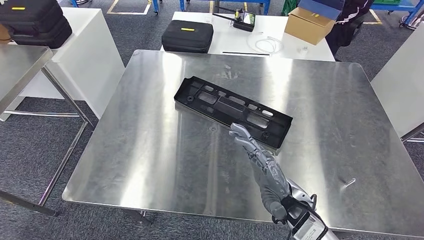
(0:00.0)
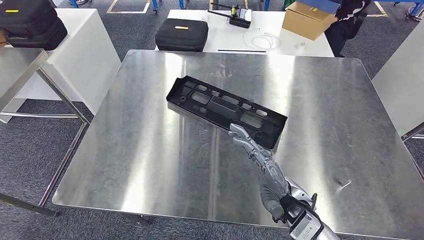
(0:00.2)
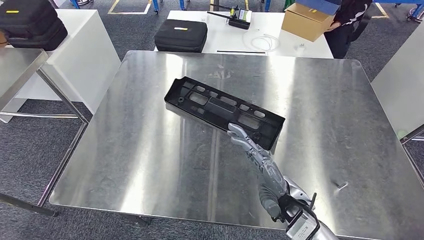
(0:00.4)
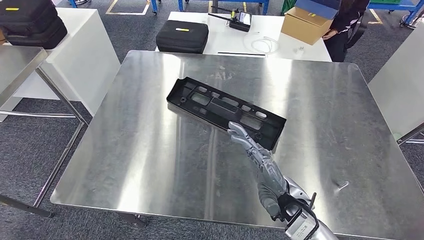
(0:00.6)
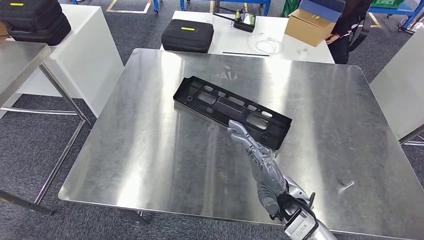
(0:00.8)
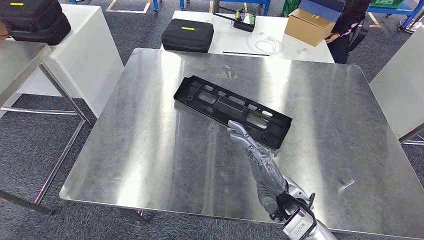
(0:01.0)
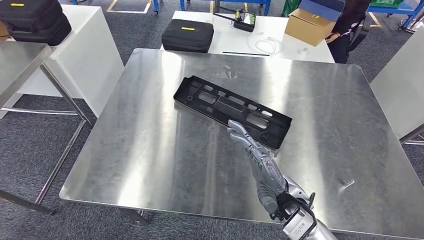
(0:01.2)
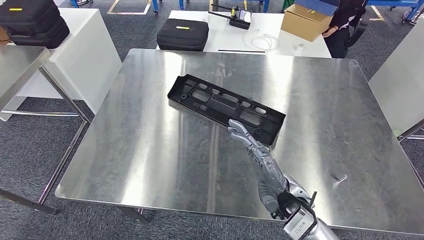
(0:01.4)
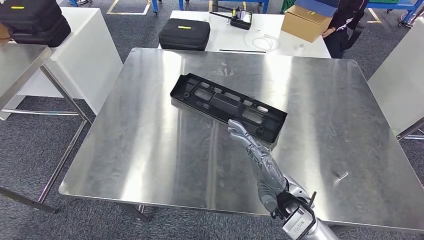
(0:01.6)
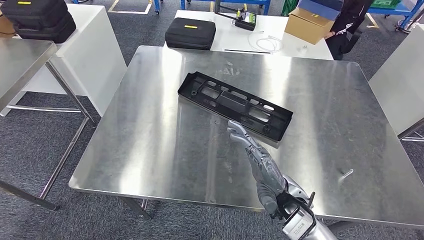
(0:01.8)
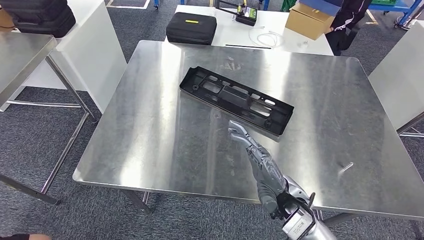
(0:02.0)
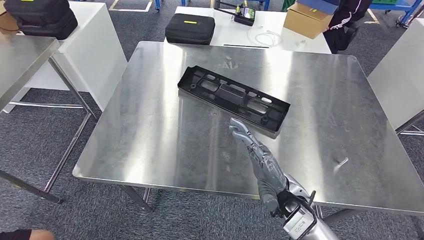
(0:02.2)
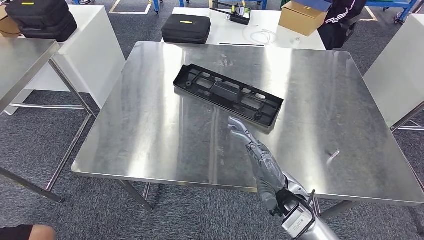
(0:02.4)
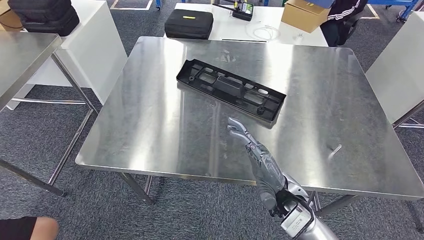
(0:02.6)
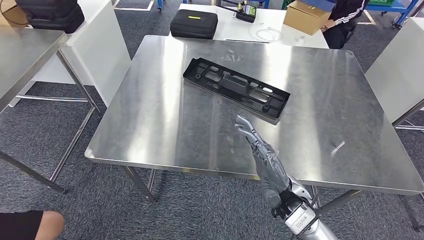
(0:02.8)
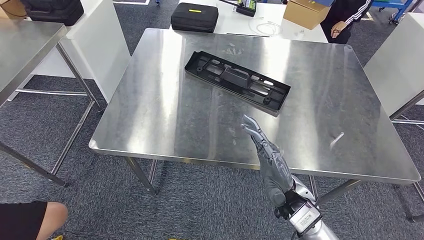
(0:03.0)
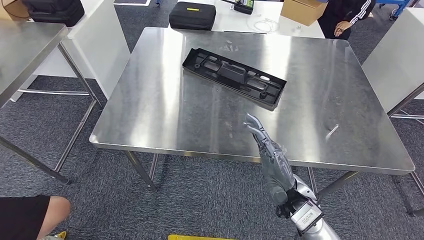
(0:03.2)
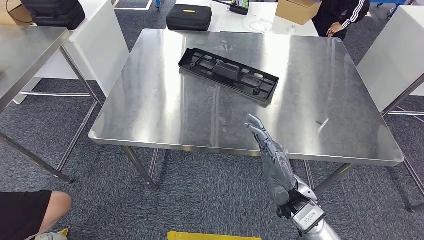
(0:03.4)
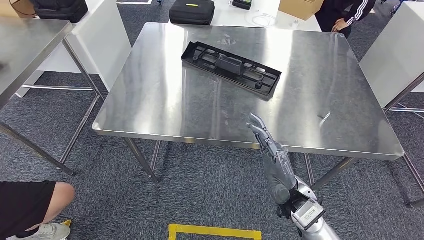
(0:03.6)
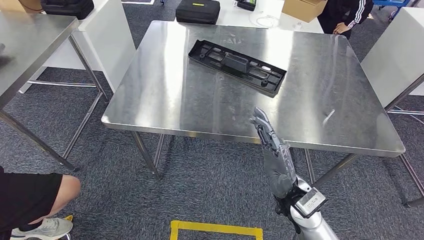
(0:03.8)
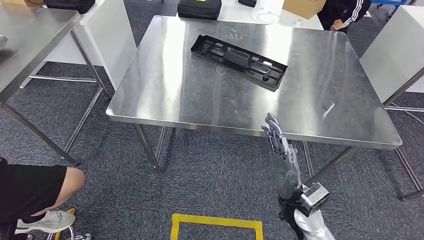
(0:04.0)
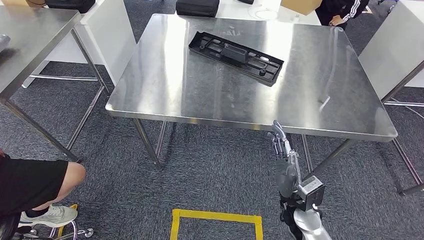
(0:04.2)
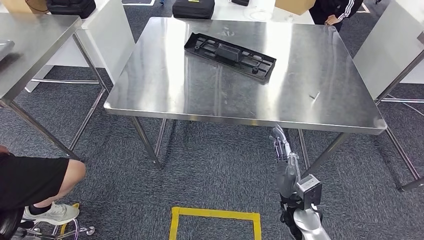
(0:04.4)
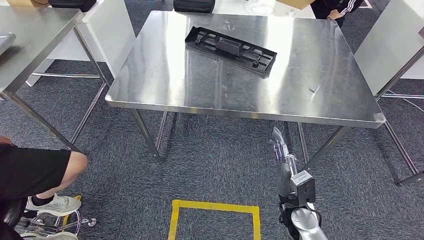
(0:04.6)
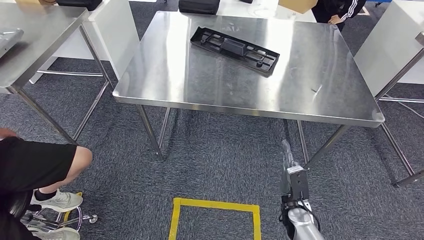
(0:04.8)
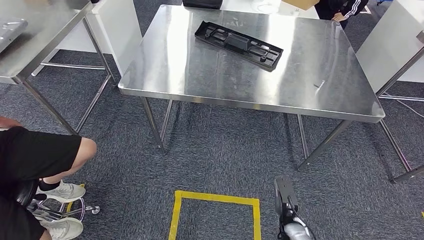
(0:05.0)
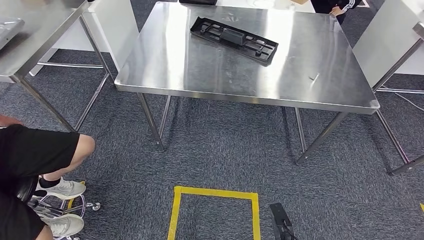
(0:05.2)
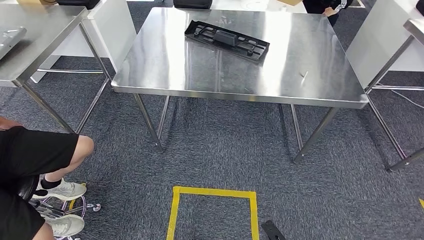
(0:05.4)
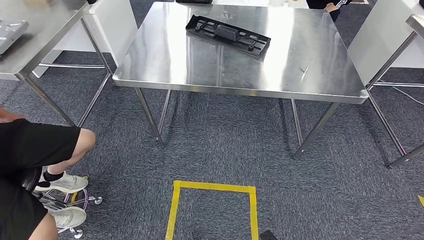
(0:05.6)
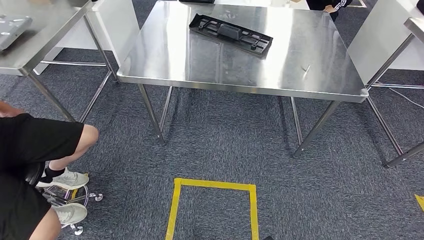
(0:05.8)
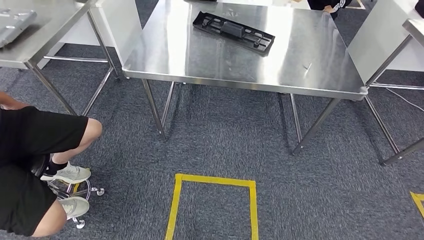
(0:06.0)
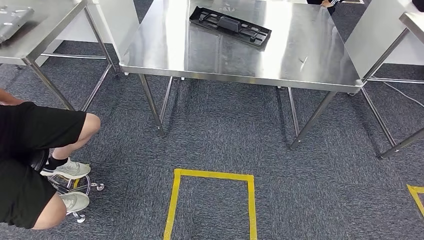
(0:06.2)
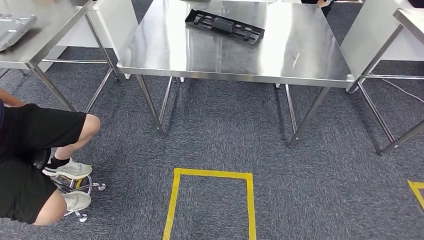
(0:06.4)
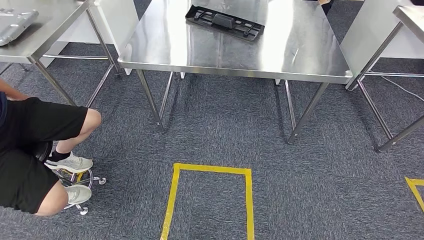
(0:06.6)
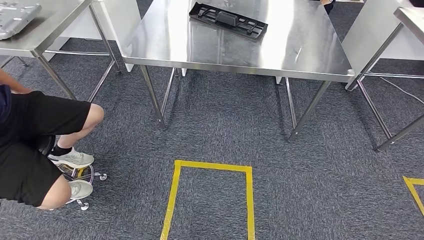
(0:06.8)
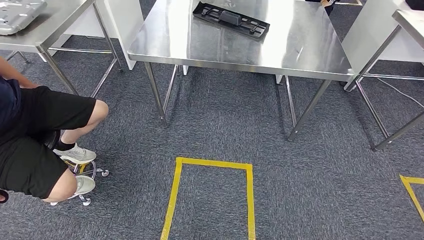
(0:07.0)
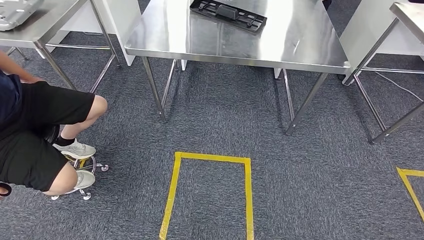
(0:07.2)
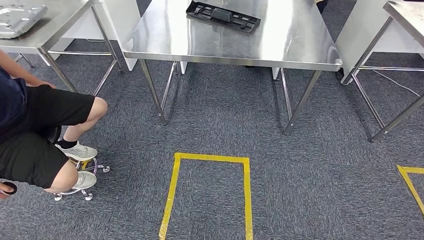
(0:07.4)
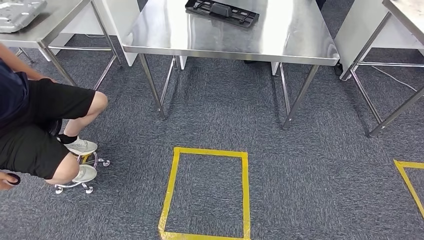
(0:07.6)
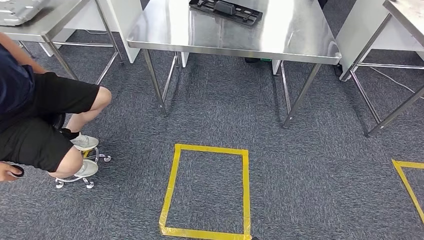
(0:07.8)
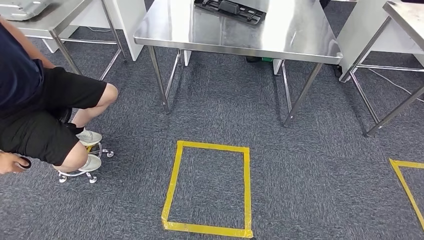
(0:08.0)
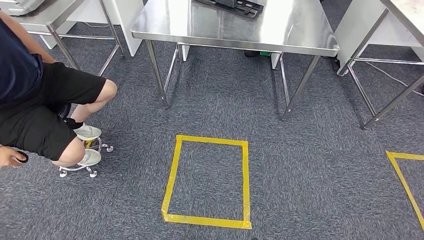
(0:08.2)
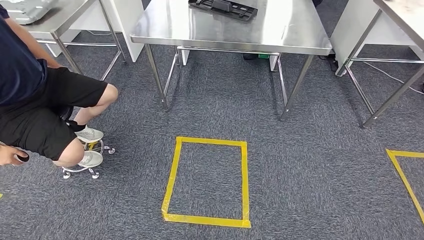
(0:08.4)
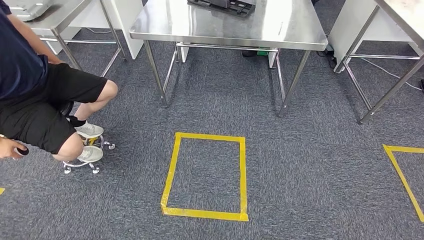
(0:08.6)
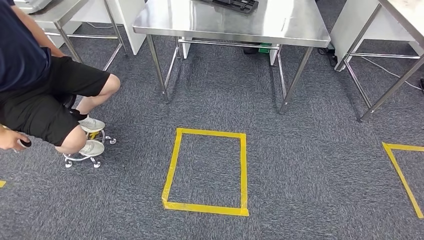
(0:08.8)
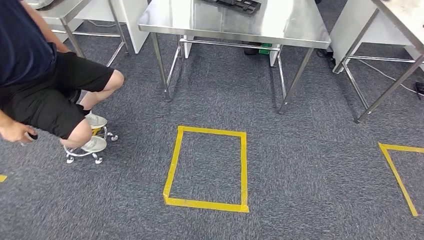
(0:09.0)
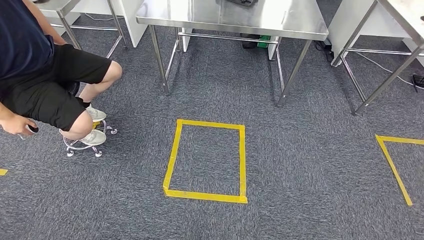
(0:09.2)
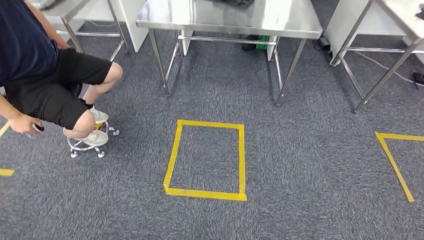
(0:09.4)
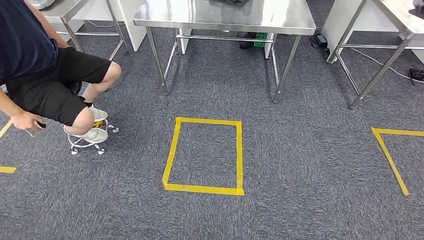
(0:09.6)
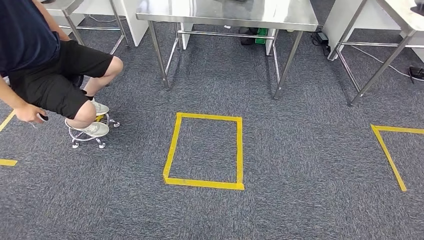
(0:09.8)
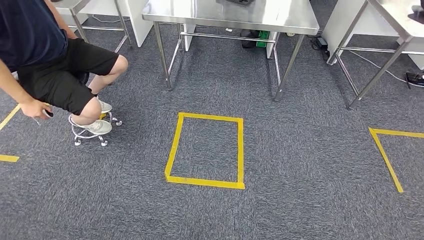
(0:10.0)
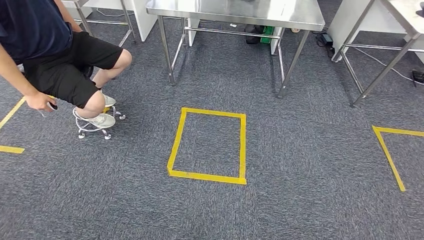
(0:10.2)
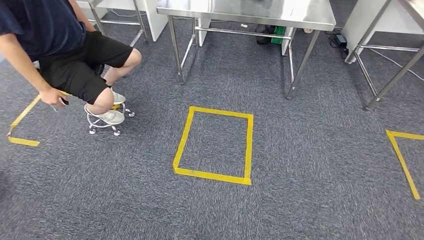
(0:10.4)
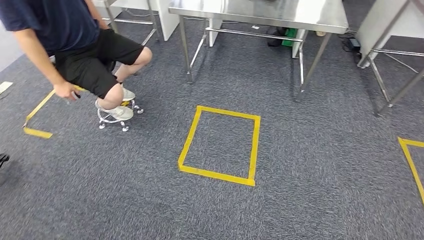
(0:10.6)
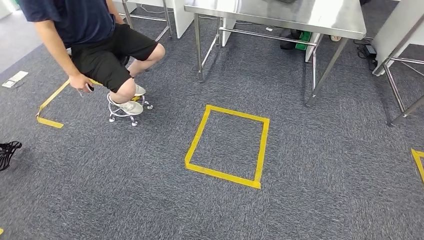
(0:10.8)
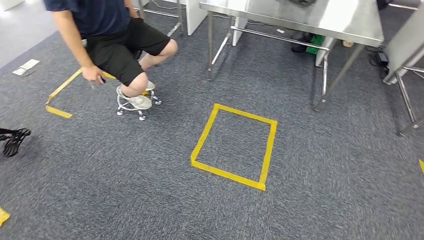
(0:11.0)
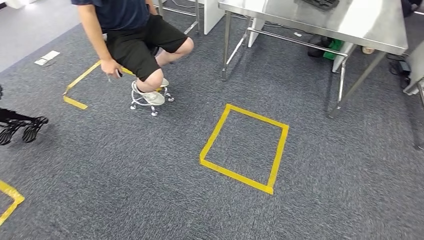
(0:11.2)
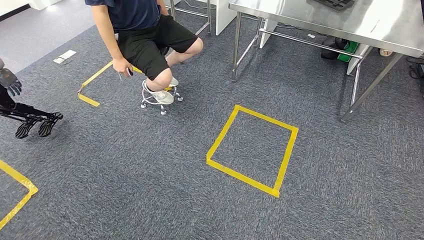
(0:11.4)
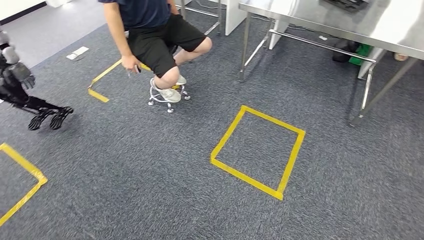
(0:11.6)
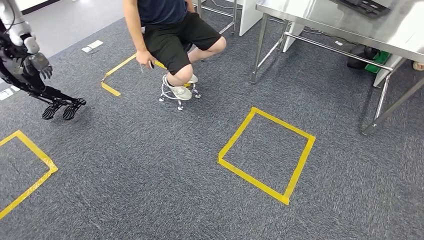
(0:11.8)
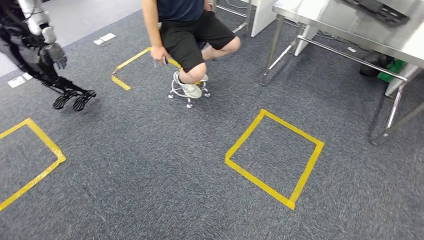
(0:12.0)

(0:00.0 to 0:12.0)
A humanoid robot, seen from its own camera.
0:00.0 - 0:01.6: Both hands stay about where they are.

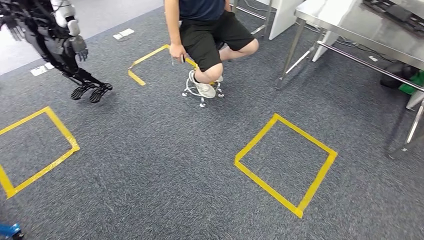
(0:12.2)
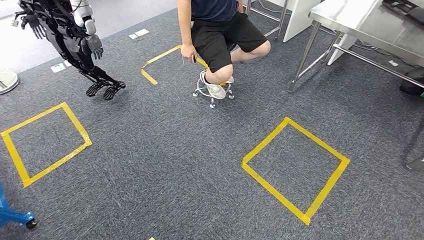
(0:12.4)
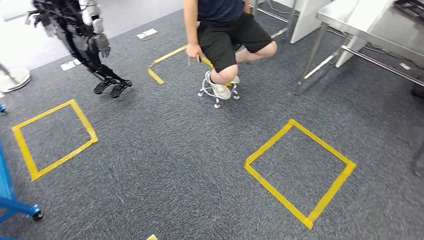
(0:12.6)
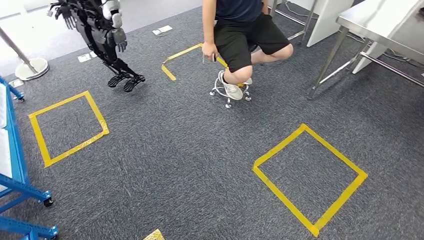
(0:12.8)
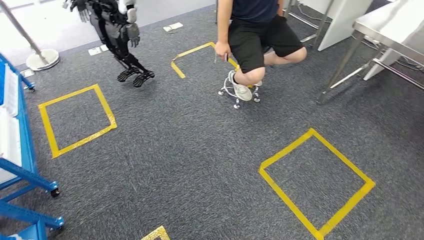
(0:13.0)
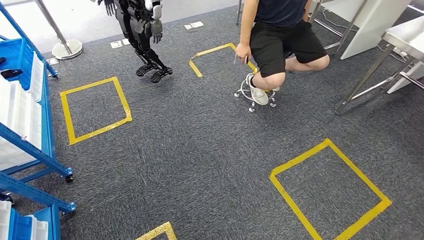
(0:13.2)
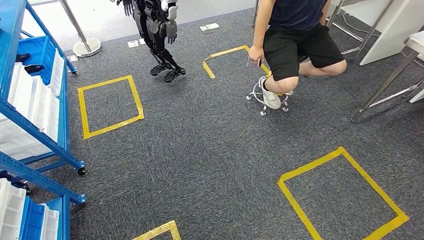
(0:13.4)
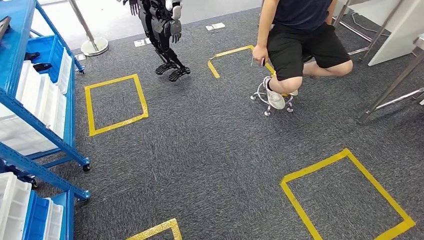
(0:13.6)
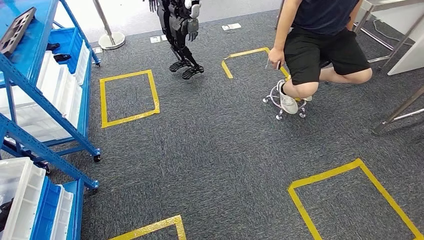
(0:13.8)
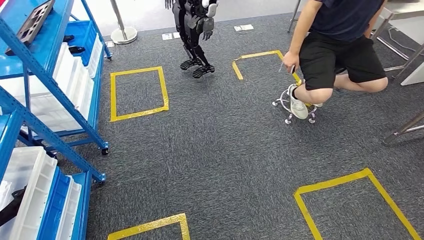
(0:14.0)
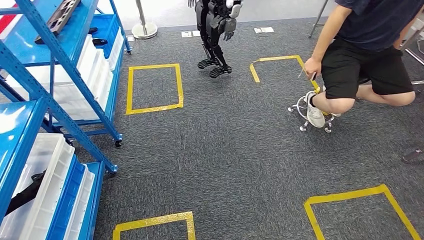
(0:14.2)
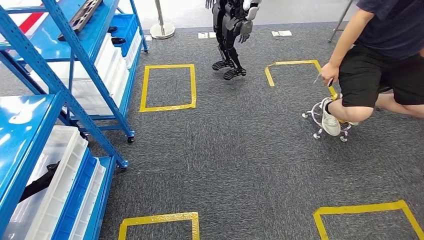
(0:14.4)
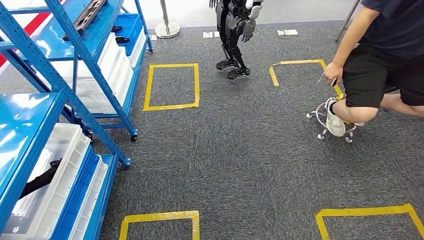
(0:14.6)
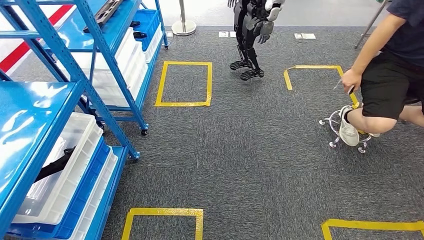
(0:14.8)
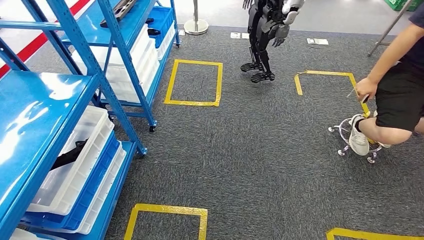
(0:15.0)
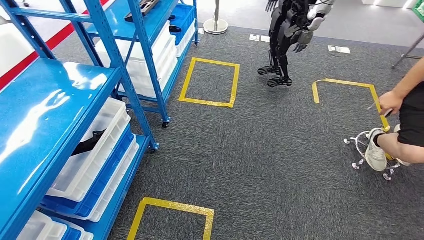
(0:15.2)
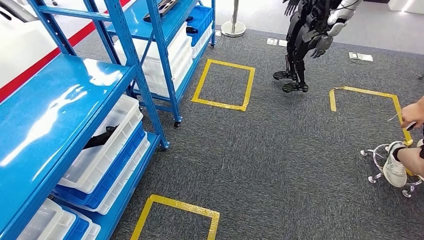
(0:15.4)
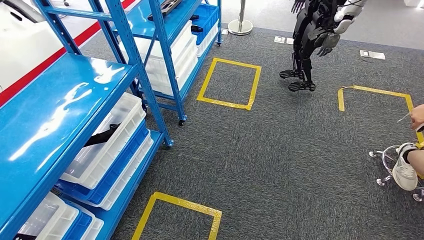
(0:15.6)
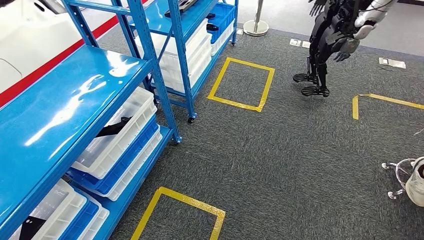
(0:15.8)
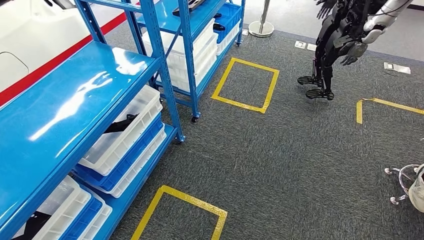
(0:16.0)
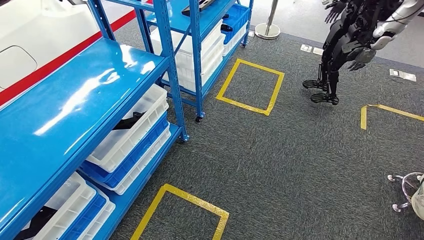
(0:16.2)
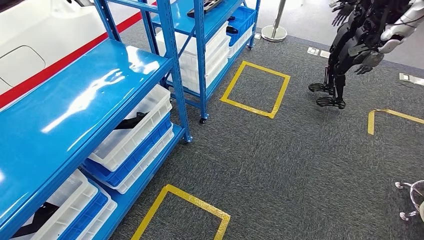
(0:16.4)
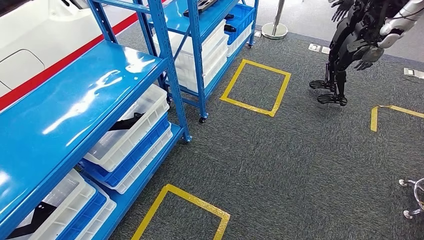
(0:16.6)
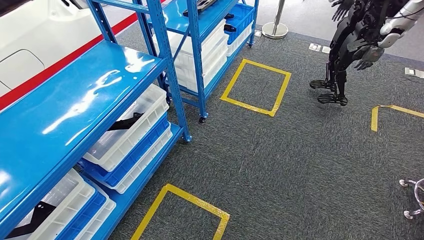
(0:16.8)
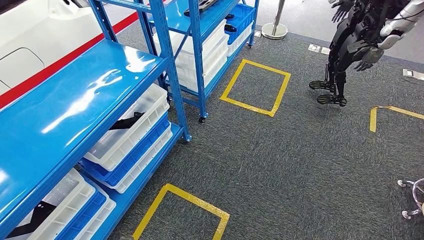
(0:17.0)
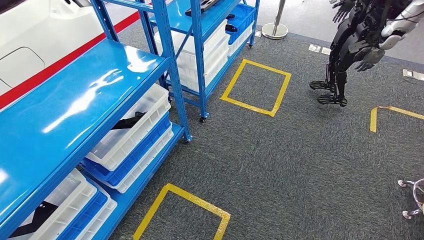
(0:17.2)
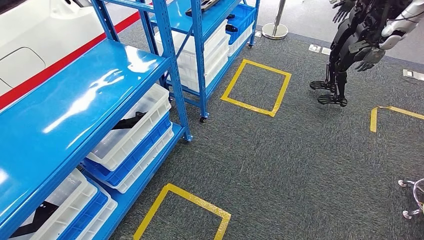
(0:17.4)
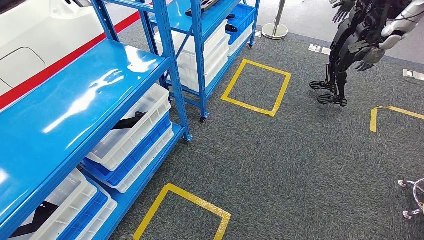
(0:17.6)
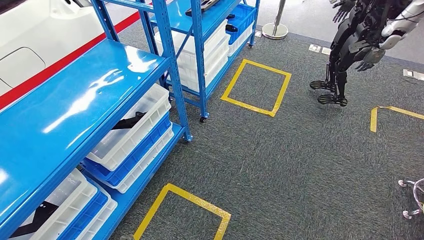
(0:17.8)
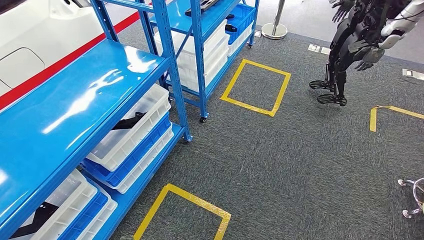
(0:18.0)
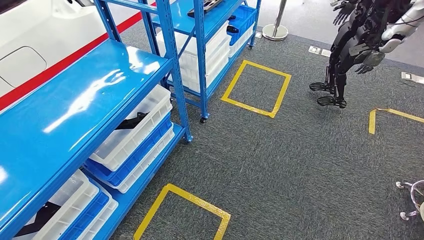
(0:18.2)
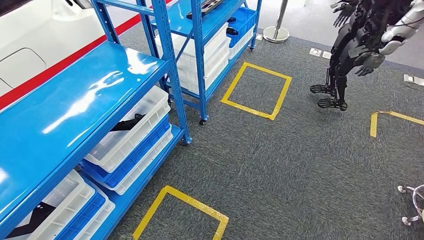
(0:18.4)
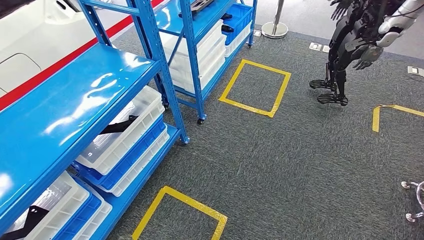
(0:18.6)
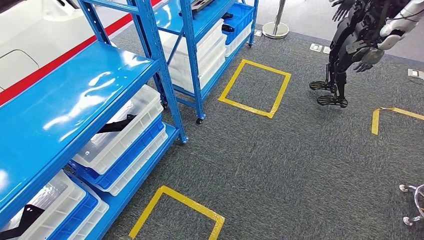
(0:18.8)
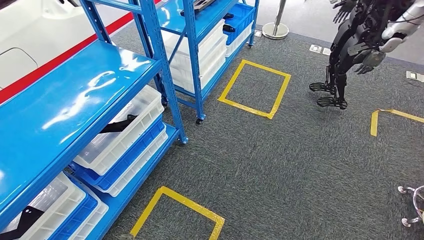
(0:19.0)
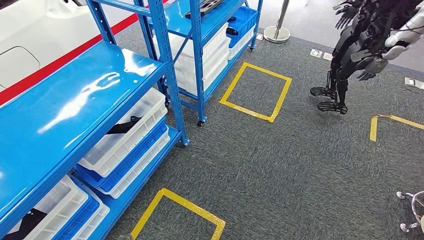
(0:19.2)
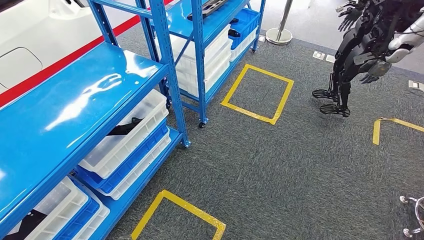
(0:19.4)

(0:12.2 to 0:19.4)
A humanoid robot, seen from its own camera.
0:16.6 - 0:18.0: The hands stay close to where they were, moving slightly.
